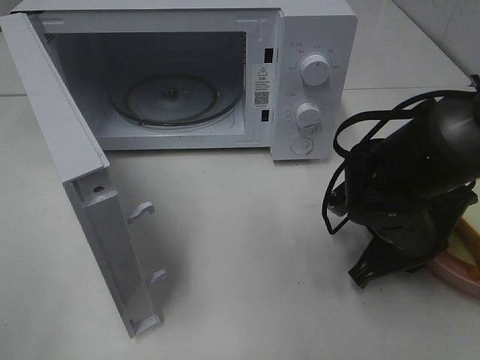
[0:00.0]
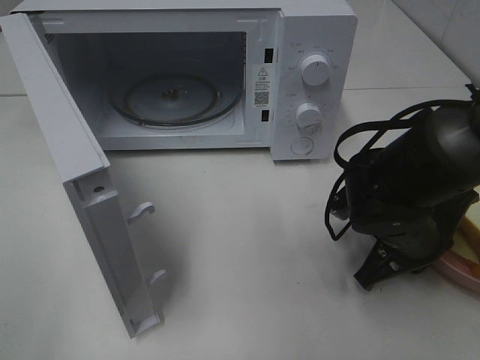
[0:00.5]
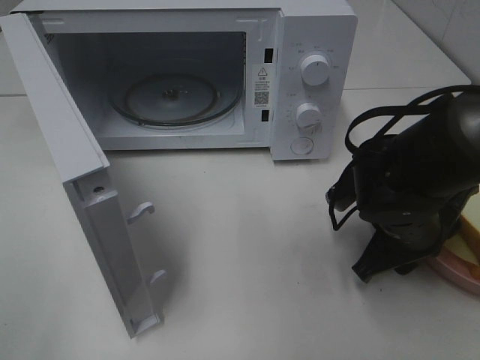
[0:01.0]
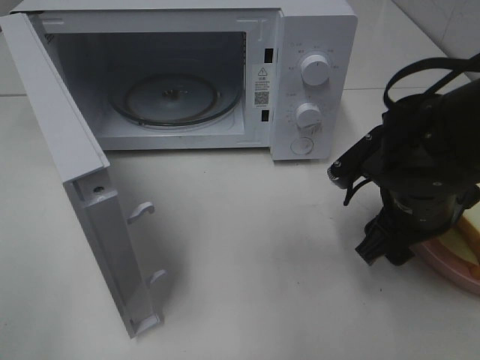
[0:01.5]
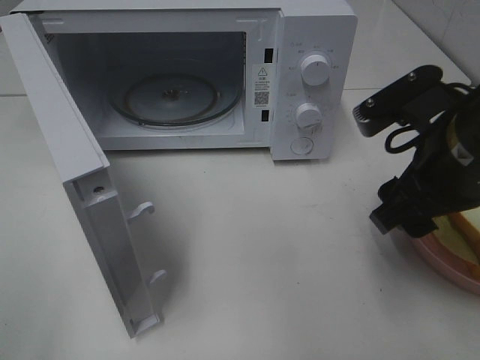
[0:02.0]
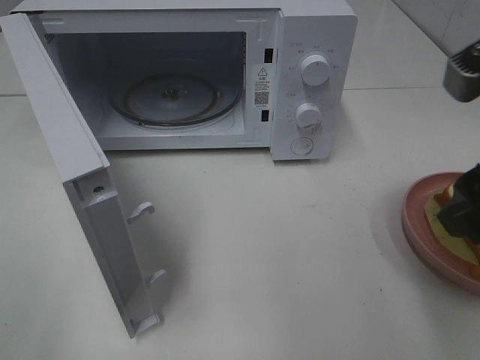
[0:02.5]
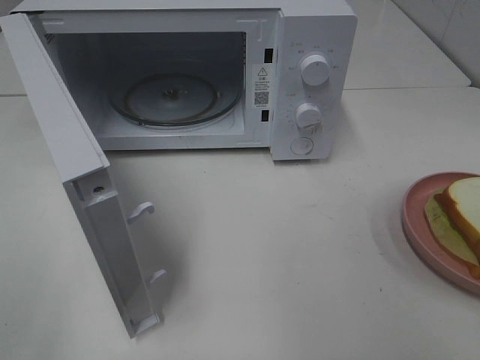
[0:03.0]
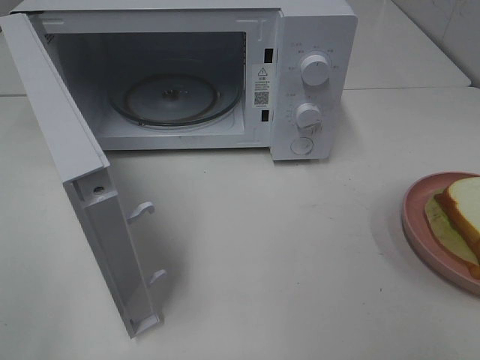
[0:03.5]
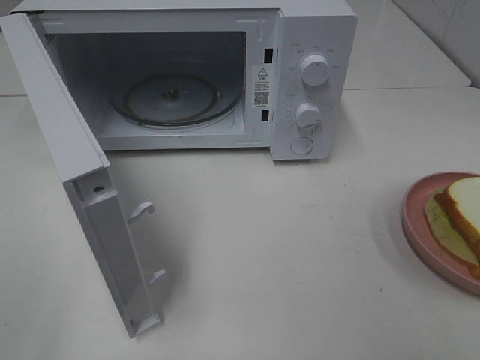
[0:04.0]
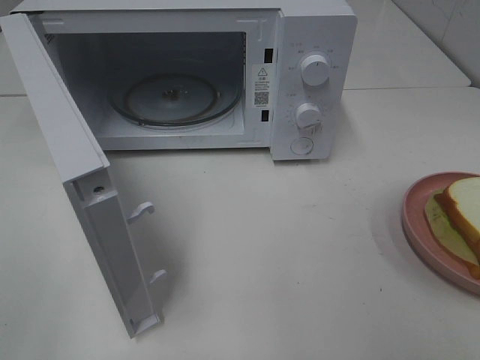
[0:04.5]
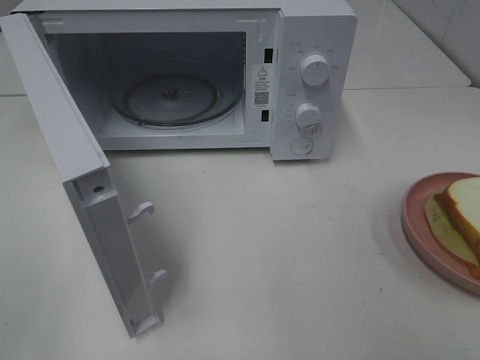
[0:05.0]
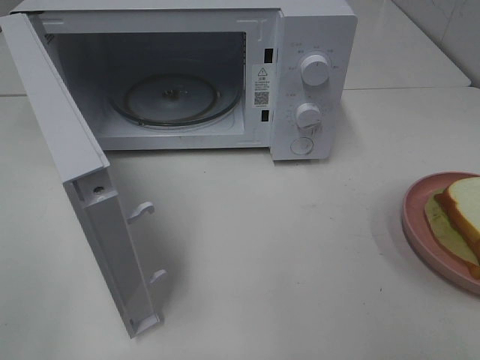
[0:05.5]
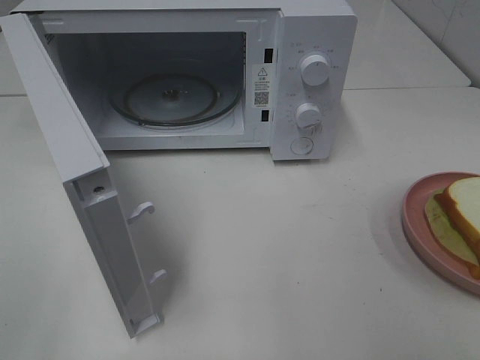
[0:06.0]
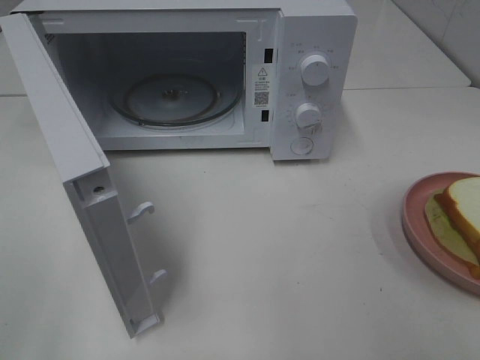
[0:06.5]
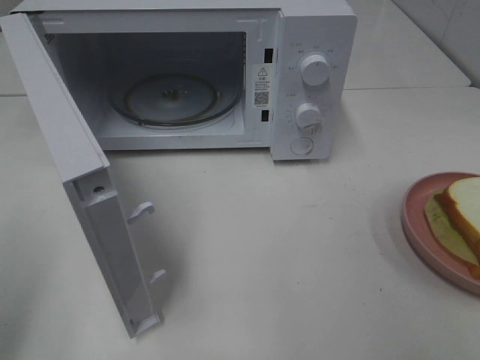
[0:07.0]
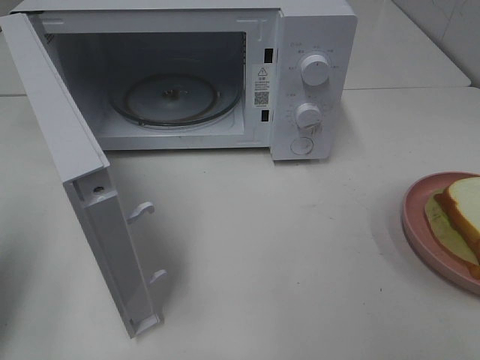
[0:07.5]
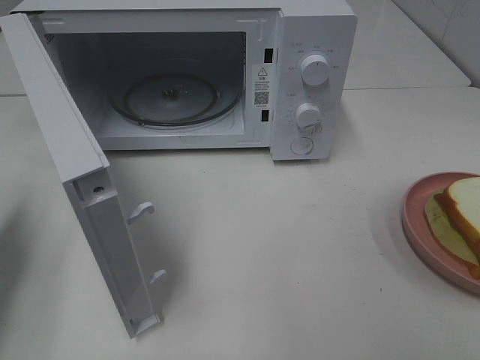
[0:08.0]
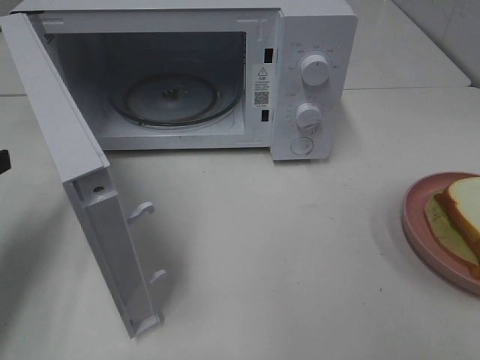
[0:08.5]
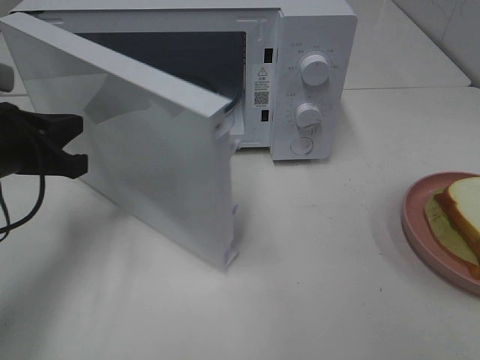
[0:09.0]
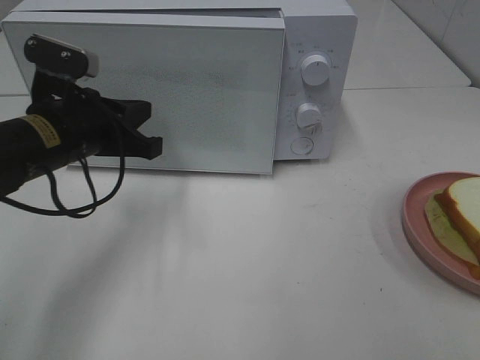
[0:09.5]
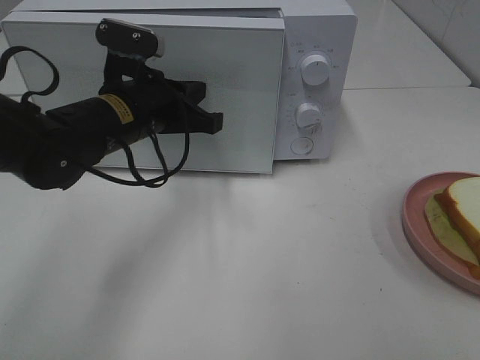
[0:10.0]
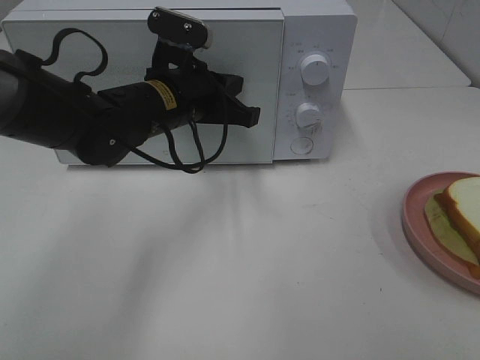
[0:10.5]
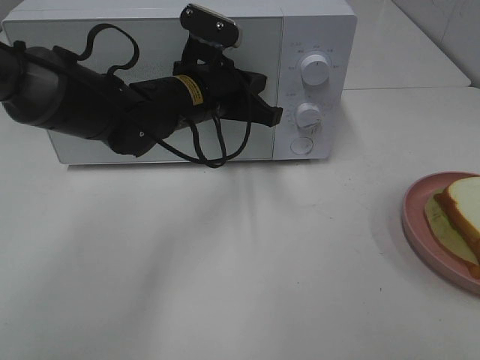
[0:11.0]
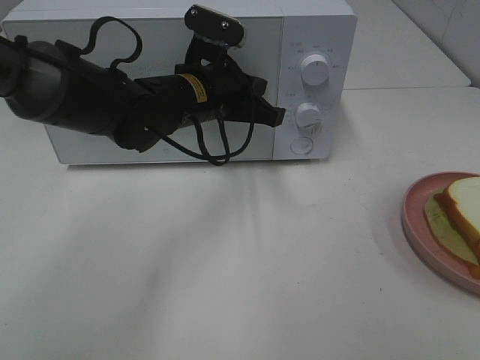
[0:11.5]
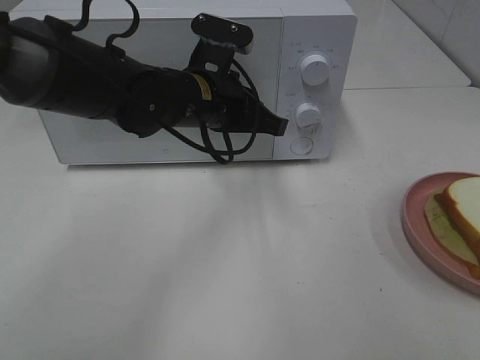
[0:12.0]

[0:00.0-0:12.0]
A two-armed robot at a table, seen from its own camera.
Task of the whole recording: Heat Sandwich.
Step, 0:00.0 to 0:02.5: Right hand: place the plate on the table.
0:00.0 to 0:02.0: The right gripper heads upward, covering approximately 15 cm, and opens its fingers.
0:02.0 to 0:04.0: The right gripper moves backward and to the right, some 25 cm.
0:06.0 to 0:08.0: The left gripper heads forward, covering roughly 25 cm, and closes its fingers.
0:08.0 to 0:10.0: The left gripper goes some 25 cm to the right and forward.
0:10.0 to 0:12.0: The left gripper is displaced to the right by roughly 5 cm.

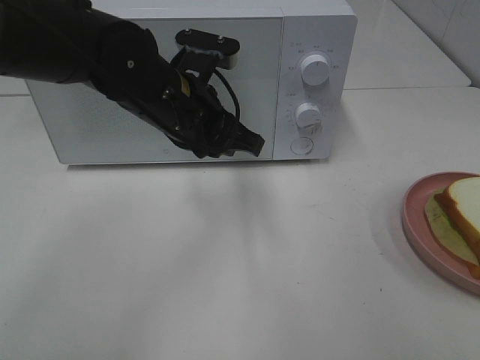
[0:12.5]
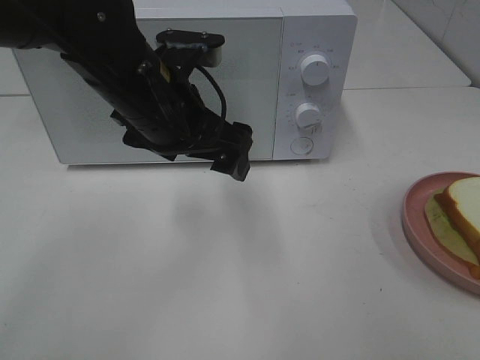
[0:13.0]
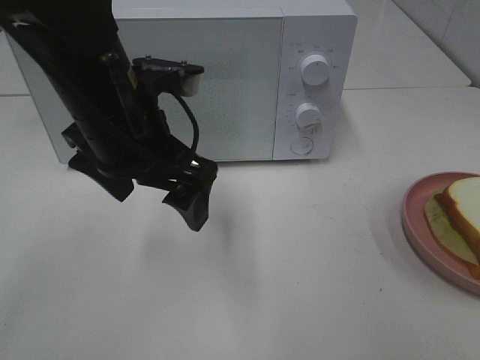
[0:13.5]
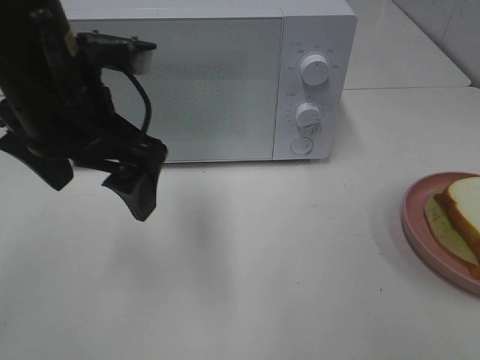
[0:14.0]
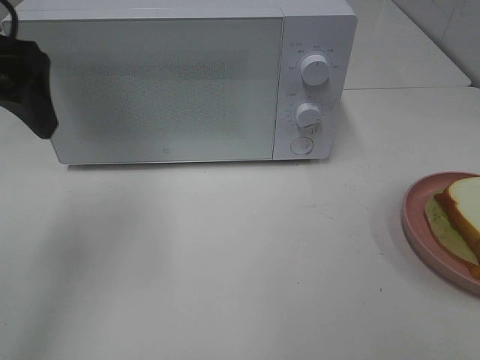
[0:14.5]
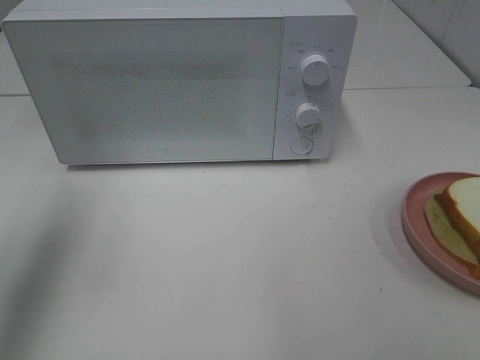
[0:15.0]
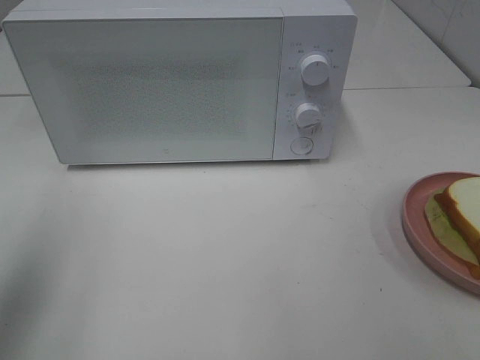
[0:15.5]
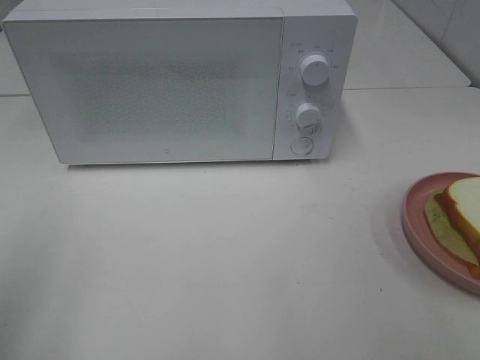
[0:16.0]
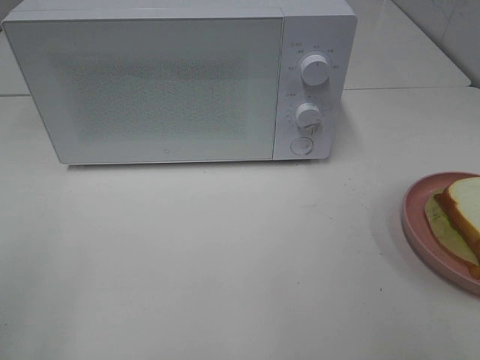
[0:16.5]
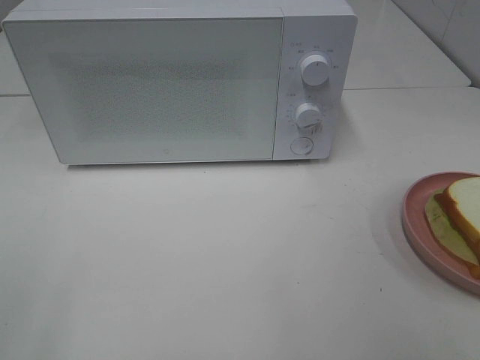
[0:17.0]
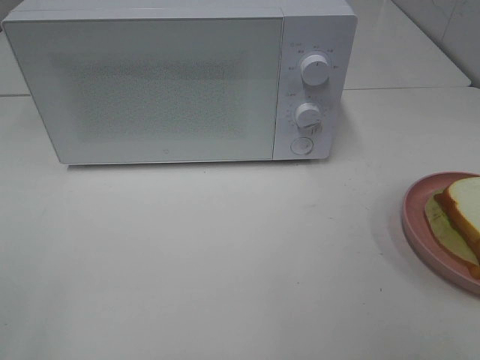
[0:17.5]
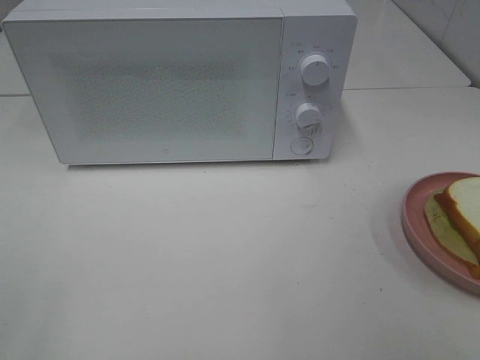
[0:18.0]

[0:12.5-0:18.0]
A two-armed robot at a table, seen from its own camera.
Task of the whole recording: Heat Sandwich.
0:12.5 to 0:14.5: The left gripper travels to the left and upward by roughly 20 cm, and opens its fingers.
0:14.5 to 0:16.0: The left gripper moves backward and to the left, approximately 20 cm.
